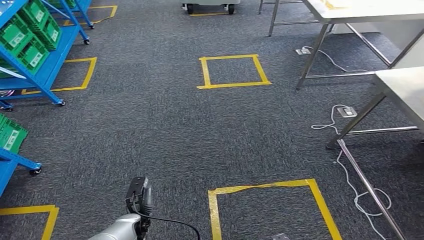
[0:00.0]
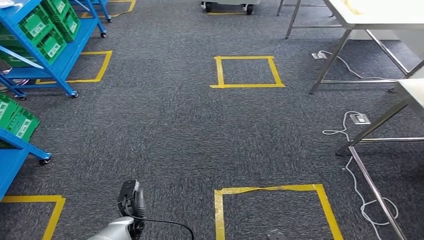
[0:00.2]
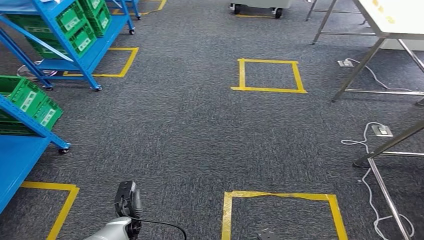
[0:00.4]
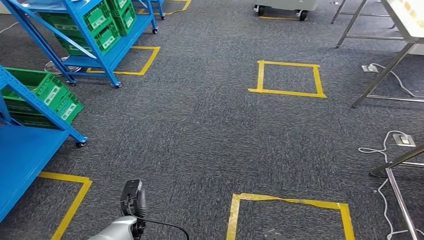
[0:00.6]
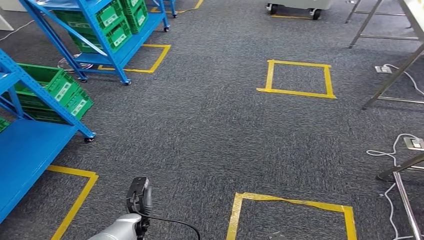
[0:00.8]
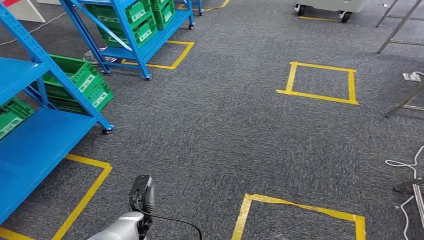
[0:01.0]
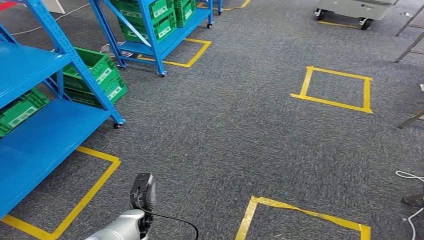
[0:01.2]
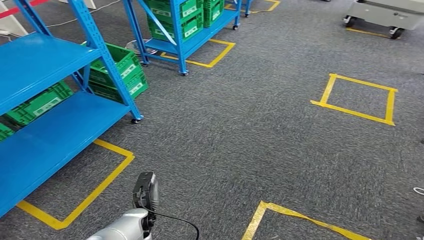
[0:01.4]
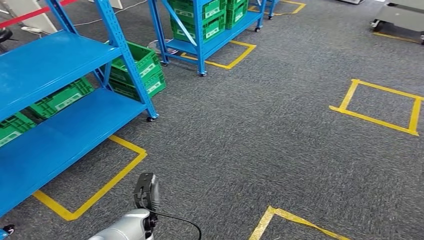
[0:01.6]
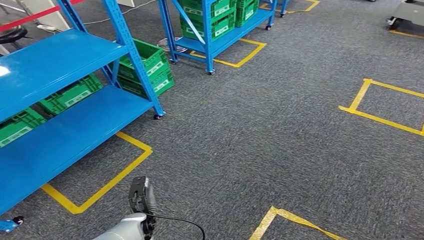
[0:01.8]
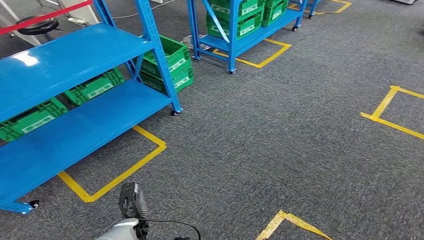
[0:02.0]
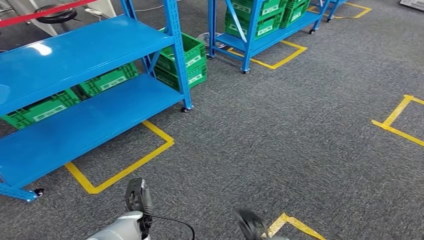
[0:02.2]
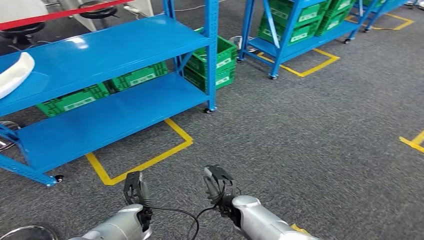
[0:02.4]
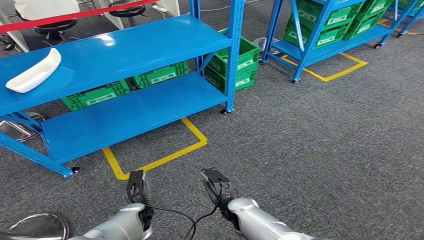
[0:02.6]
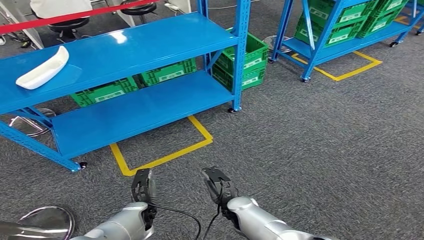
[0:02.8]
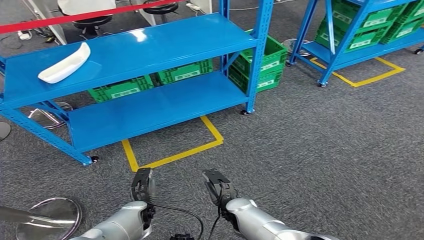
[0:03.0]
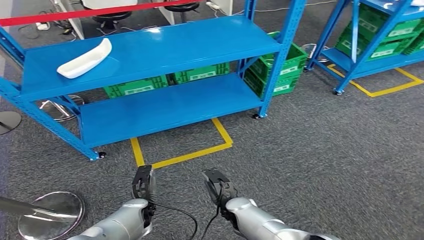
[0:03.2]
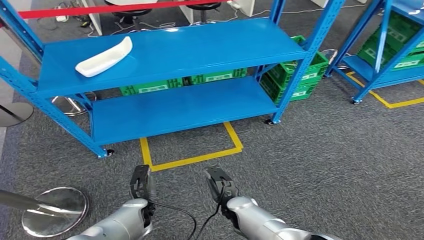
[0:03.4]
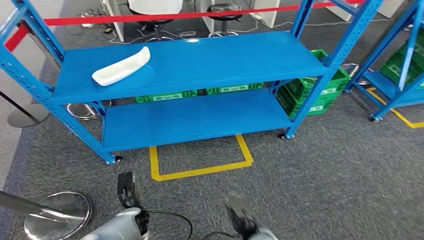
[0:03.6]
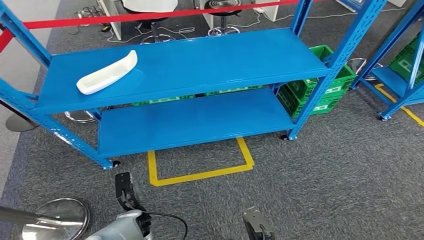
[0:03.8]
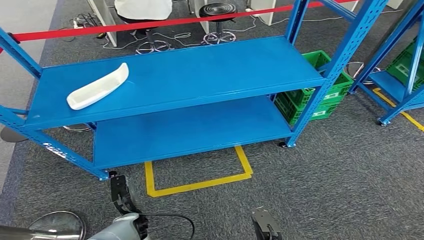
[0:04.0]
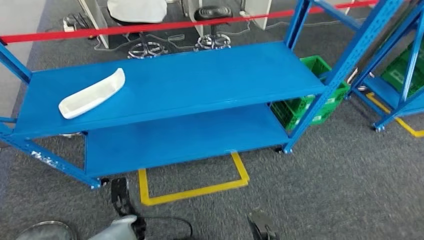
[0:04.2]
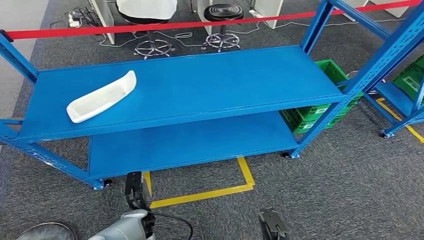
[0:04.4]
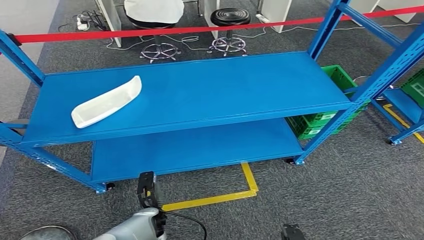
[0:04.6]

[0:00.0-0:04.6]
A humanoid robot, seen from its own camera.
Step, 0:00.0 to 0:04.6: Return to the initial position at the workbench.
